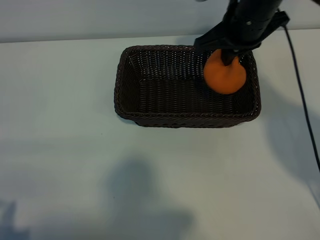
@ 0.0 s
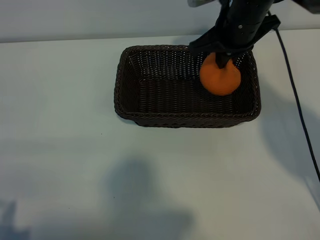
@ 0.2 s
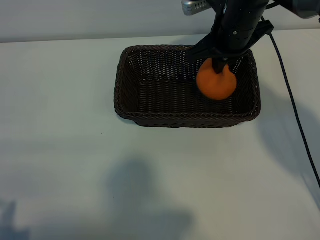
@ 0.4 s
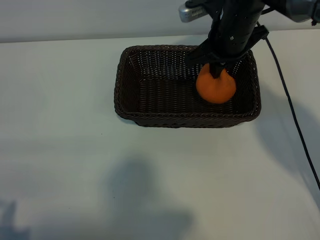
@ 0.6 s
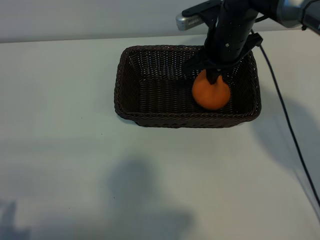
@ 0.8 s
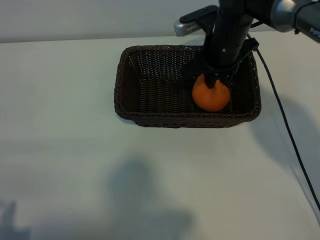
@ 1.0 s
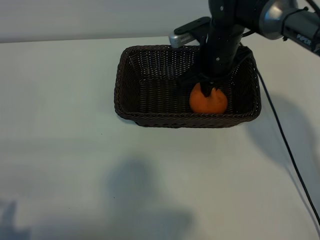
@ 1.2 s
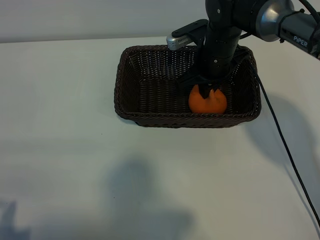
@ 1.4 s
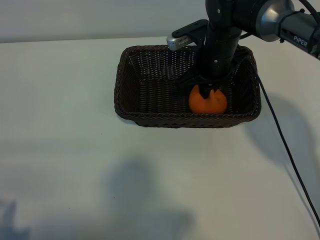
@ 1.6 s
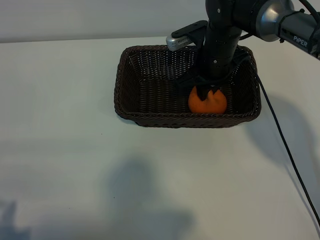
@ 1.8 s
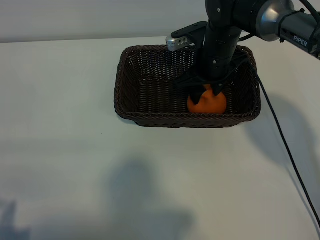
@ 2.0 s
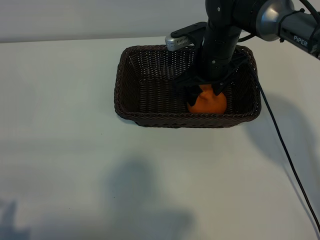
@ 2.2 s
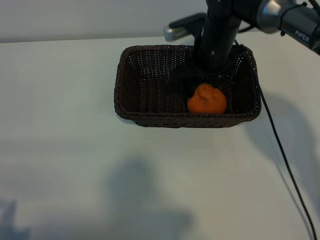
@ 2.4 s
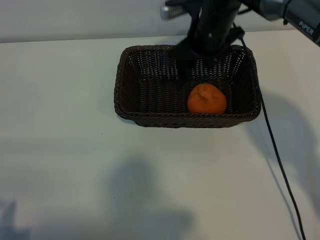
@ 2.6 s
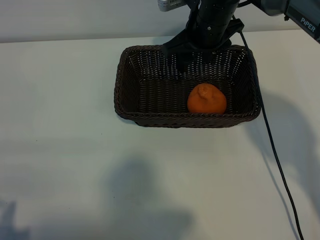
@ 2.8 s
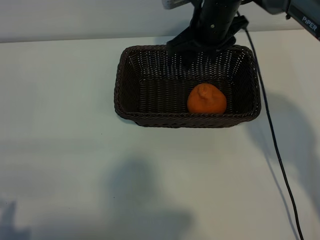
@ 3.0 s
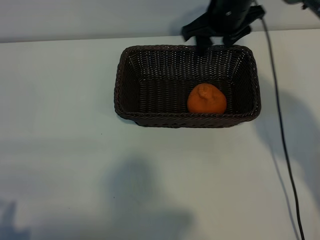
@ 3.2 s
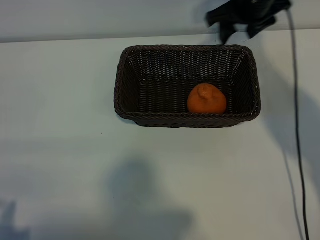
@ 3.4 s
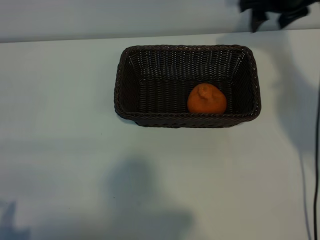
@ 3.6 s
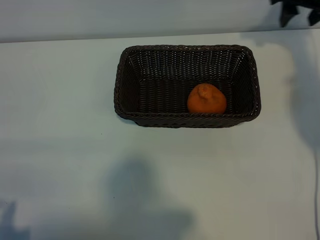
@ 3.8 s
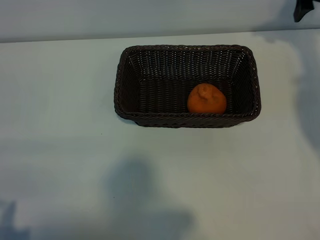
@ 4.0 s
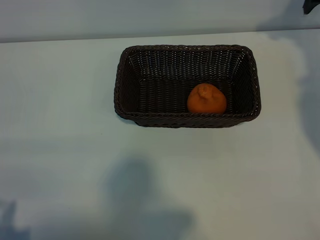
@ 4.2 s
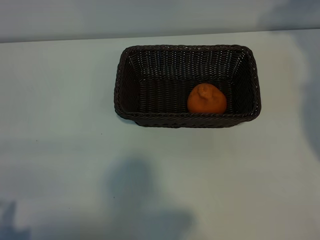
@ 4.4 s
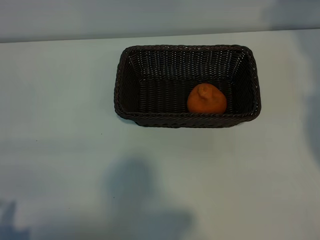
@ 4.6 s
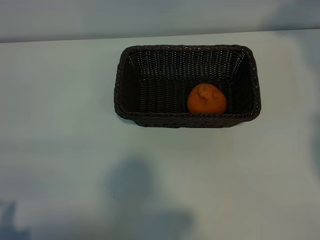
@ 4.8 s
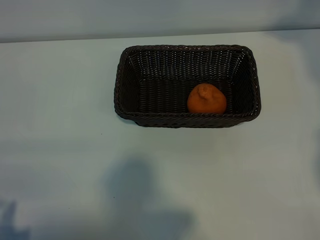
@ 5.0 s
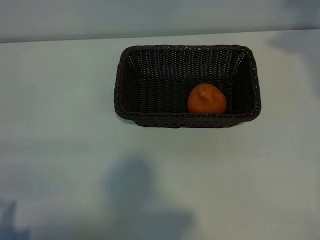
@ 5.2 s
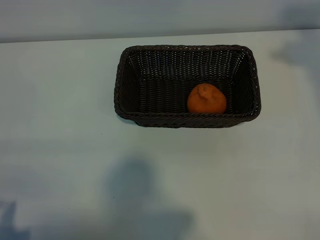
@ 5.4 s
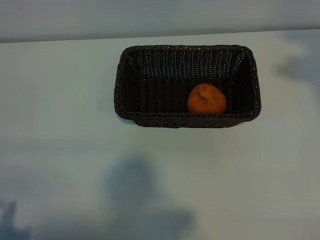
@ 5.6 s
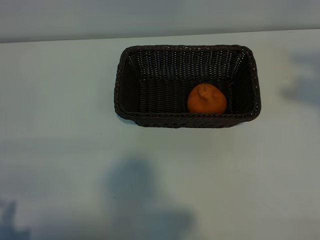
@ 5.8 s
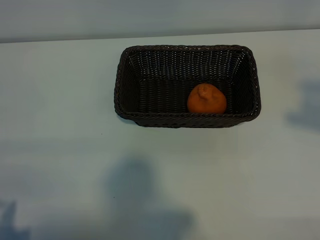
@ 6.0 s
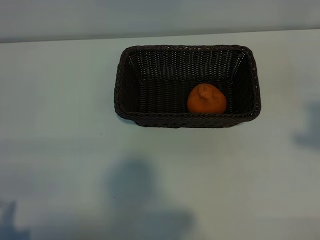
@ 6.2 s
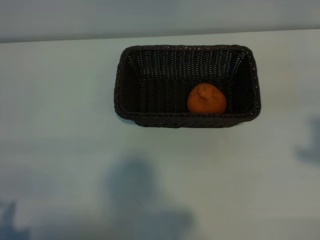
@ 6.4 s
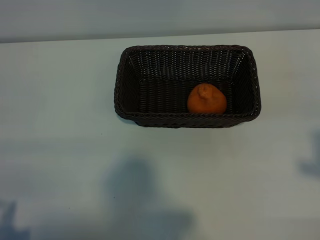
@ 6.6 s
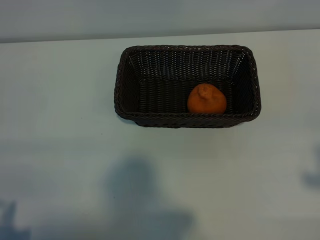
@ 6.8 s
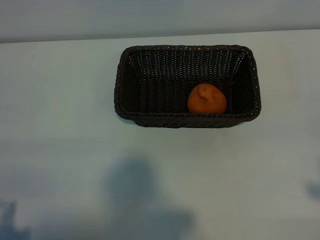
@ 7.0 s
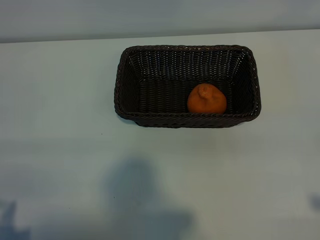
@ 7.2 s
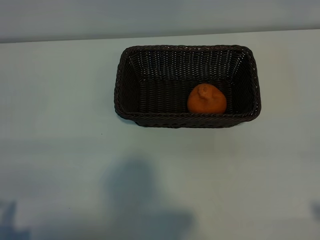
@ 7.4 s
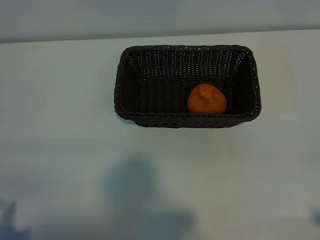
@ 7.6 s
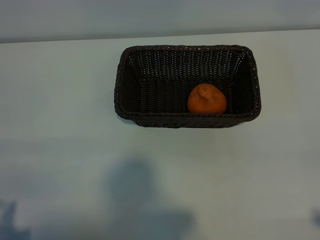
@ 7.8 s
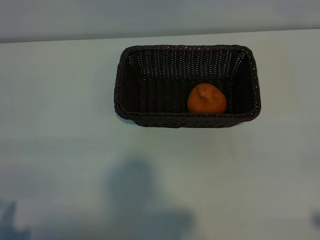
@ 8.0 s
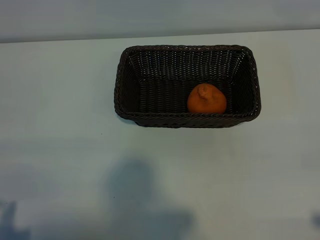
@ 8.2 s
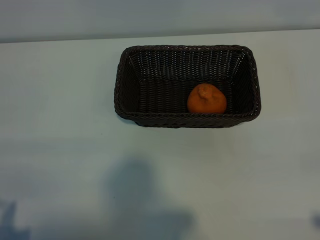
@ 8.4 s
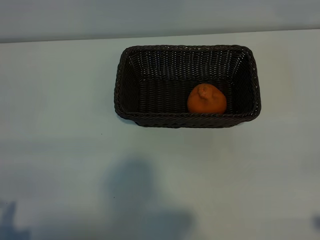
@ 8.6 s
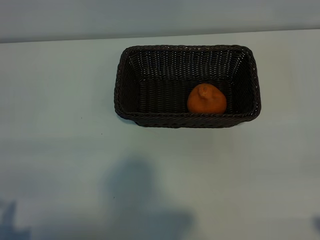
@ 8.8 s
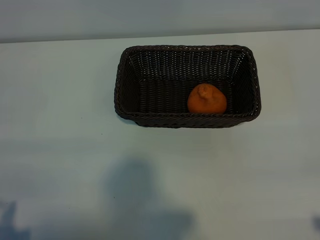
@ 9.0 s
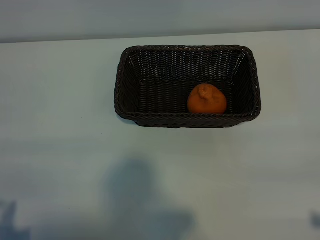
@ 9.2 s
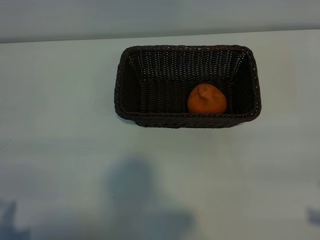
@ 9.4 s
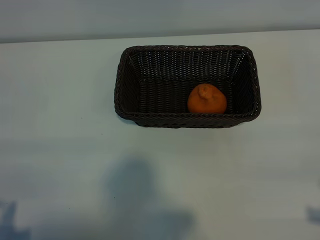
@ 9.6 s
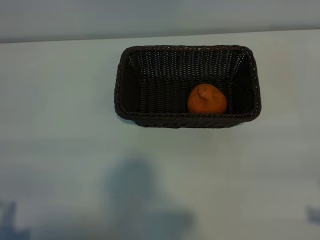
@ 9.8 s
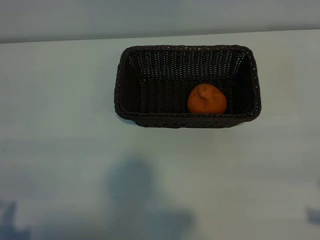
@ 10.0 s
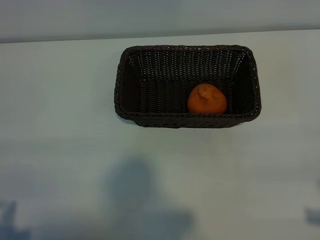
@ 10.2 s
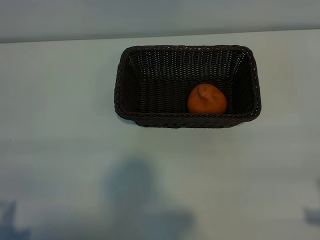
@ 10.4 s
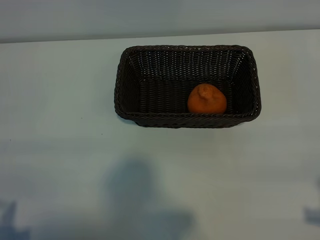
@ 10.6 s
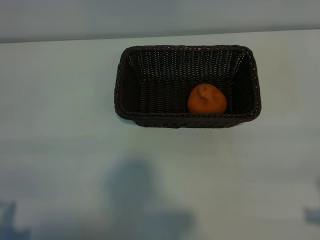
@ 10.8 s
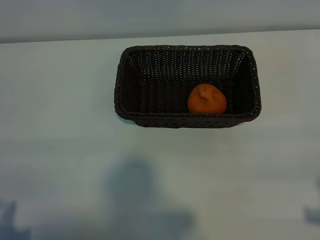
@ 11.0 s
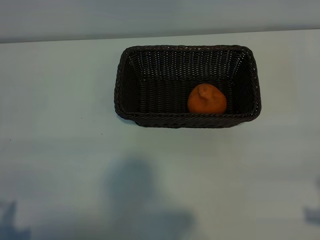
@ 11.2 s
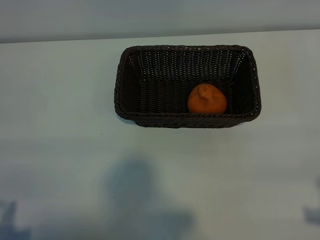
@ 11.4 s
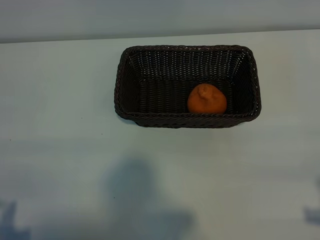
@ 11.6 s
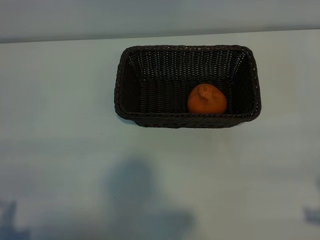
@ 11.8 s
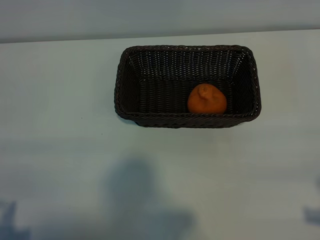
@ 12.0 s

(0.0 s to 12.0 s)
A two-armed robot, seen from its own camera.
Task of the whole recording: pick up the orange and put it into the basket.
Step, 0.0 s - 2.0 s: Place the orange in the basket with right gripper.
